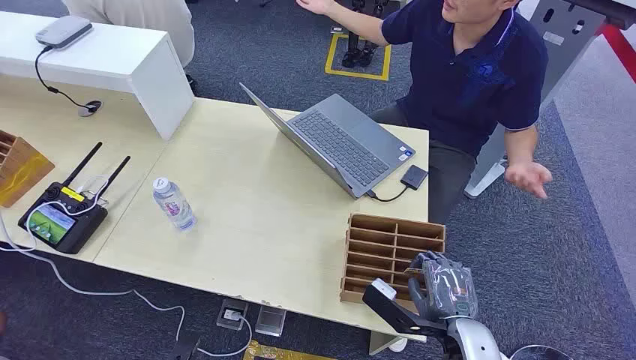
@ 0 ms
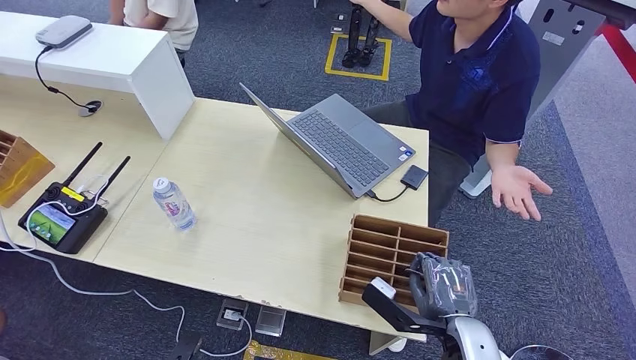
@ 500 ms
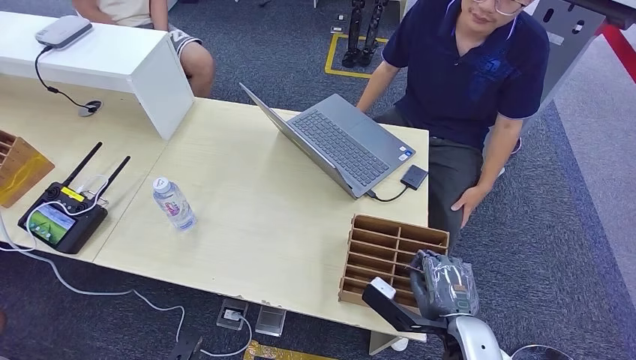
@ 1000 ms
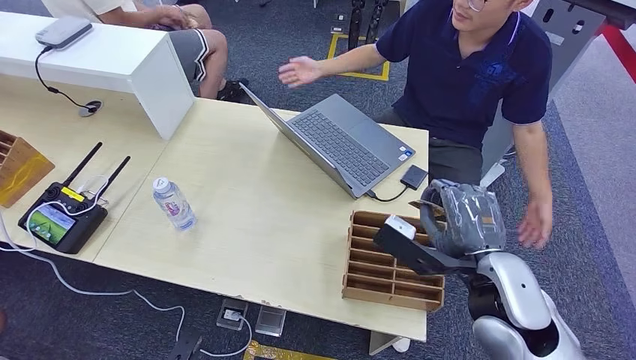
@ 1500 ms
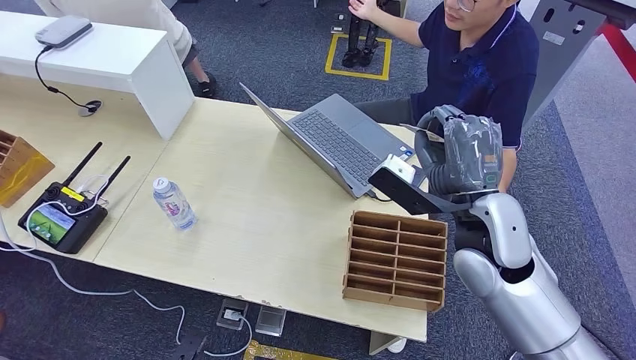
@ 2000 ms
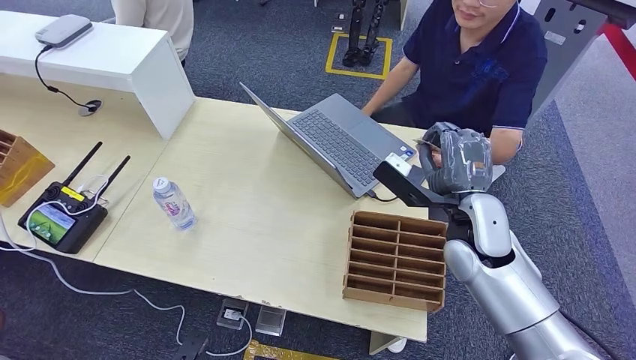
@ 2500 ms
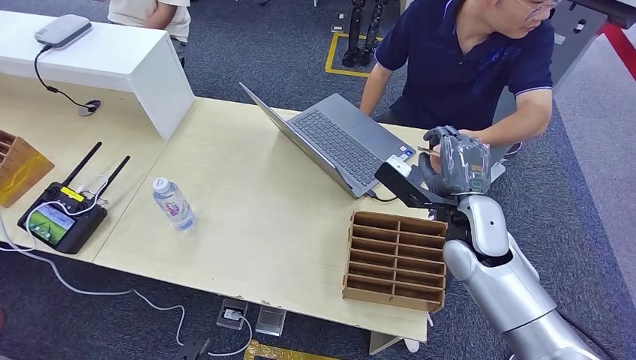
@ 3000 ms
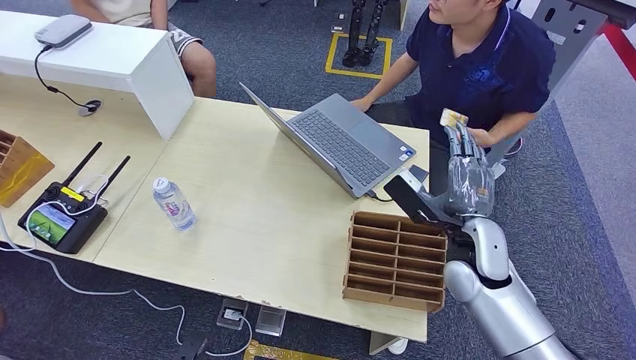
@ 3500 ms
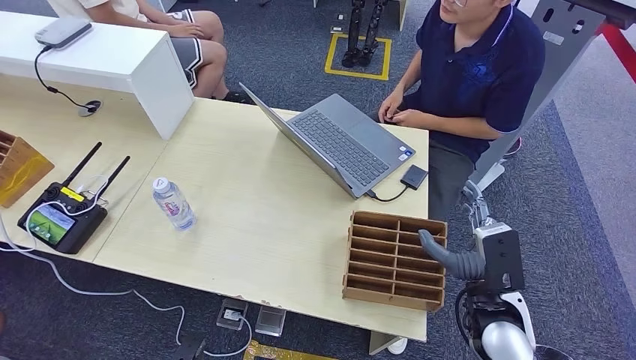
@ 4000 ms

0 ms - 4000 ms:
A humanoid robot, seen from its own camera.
Step, 0 ms - 1000 ms: Pick up the room card from the card holder.
Step, 2000 ms - 4000 ms: Hand the room card to the target.
2000 ms - 4000 ms: The right hand heads backward and to the right, covering some 15 cm.
